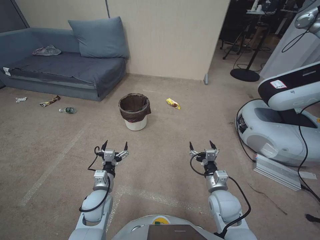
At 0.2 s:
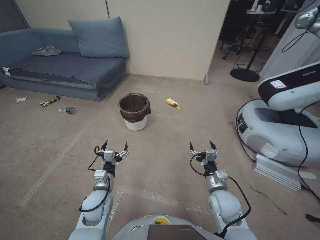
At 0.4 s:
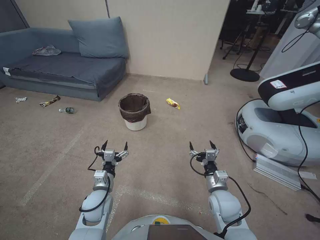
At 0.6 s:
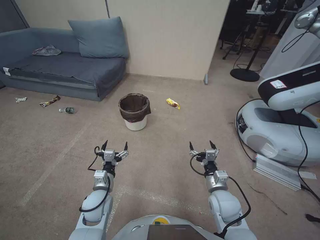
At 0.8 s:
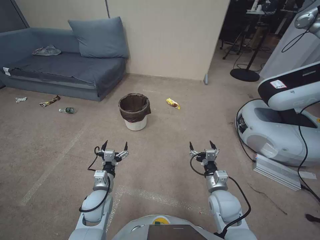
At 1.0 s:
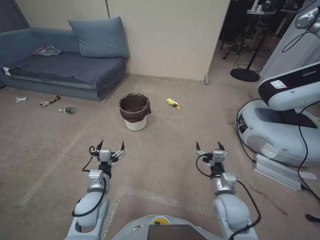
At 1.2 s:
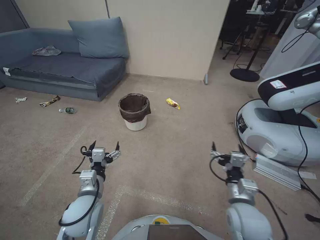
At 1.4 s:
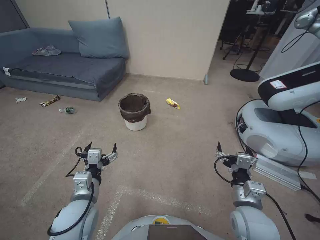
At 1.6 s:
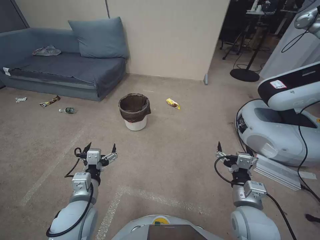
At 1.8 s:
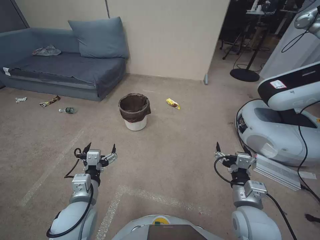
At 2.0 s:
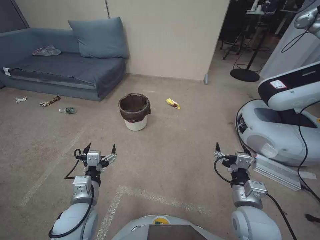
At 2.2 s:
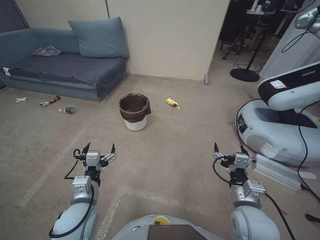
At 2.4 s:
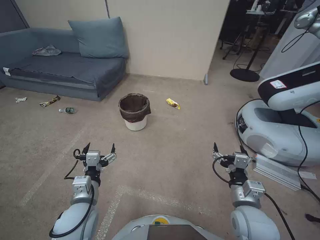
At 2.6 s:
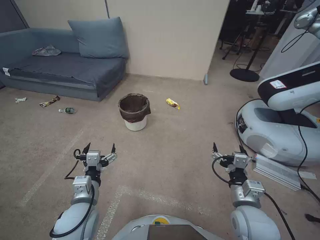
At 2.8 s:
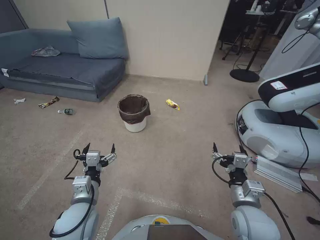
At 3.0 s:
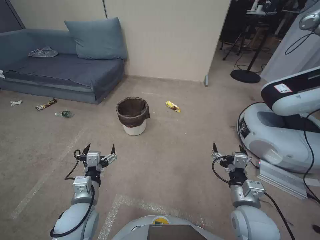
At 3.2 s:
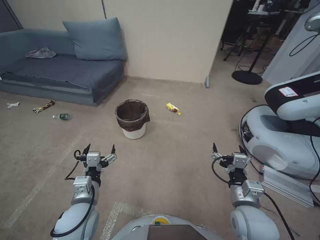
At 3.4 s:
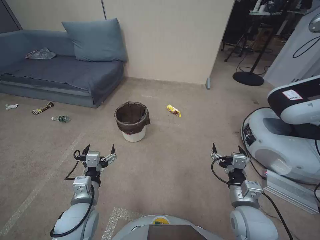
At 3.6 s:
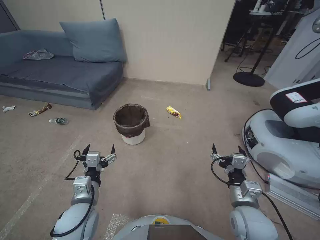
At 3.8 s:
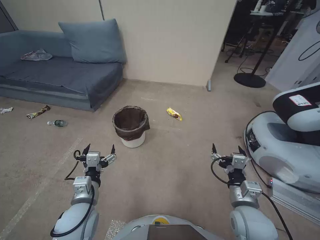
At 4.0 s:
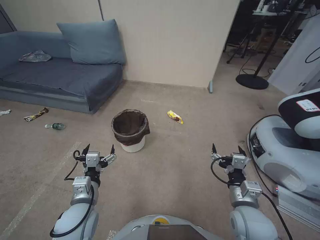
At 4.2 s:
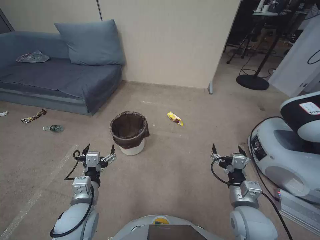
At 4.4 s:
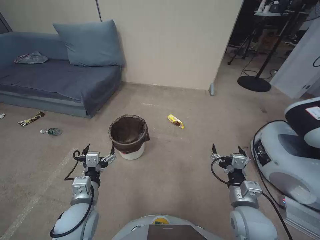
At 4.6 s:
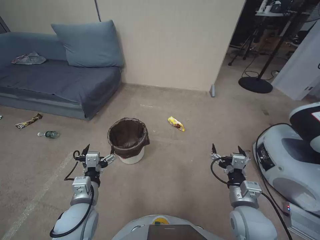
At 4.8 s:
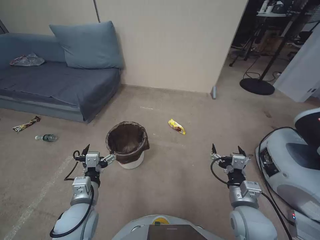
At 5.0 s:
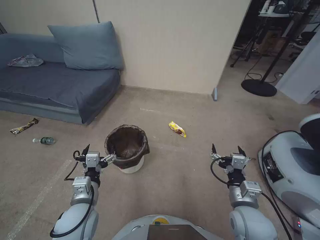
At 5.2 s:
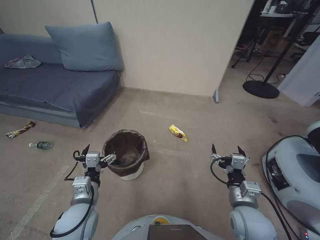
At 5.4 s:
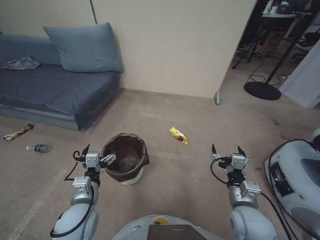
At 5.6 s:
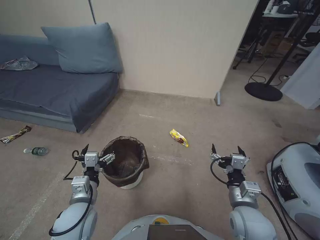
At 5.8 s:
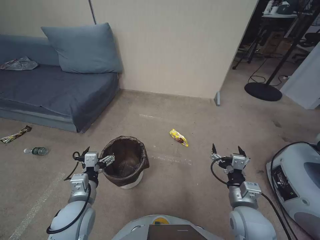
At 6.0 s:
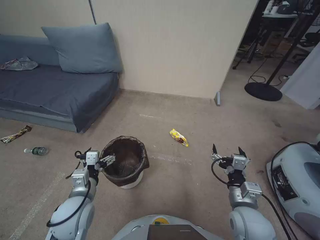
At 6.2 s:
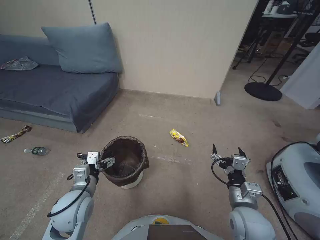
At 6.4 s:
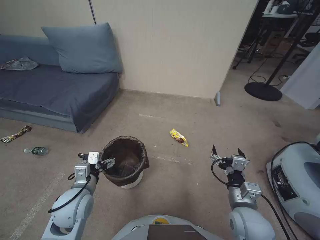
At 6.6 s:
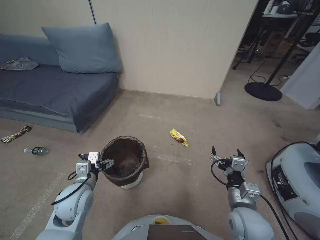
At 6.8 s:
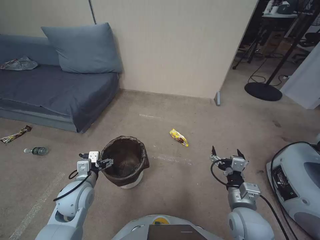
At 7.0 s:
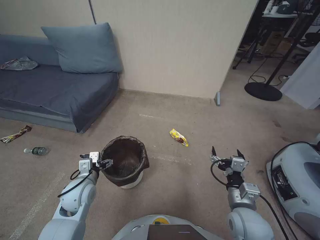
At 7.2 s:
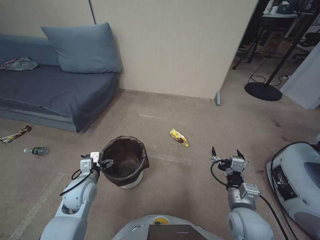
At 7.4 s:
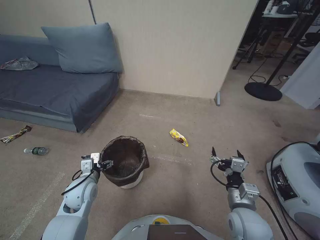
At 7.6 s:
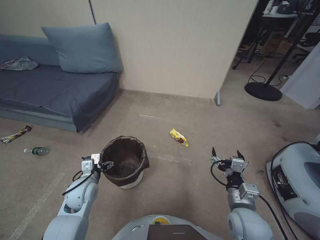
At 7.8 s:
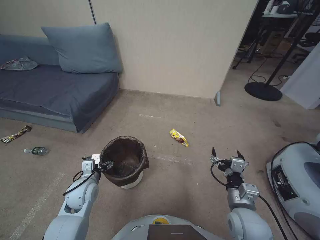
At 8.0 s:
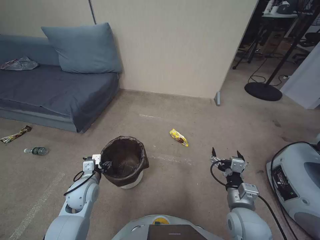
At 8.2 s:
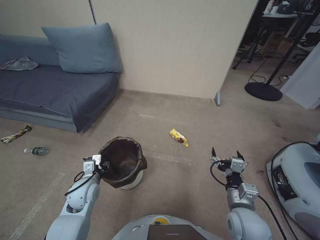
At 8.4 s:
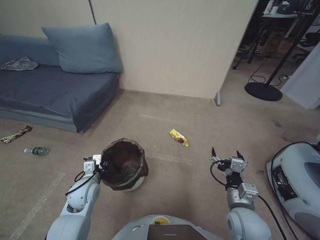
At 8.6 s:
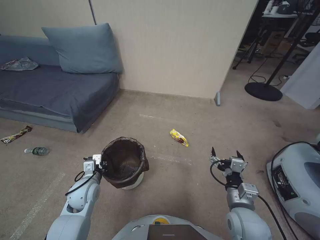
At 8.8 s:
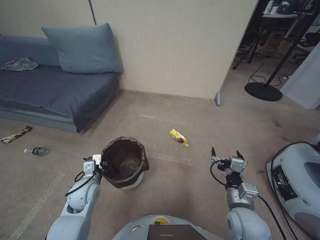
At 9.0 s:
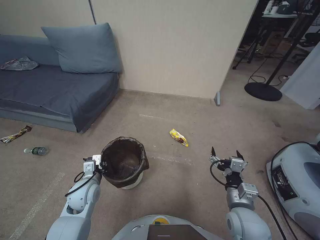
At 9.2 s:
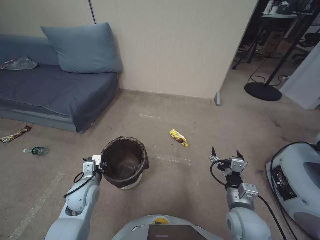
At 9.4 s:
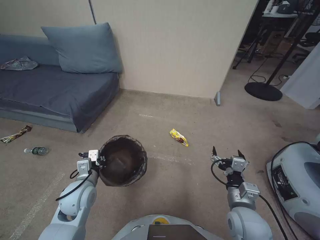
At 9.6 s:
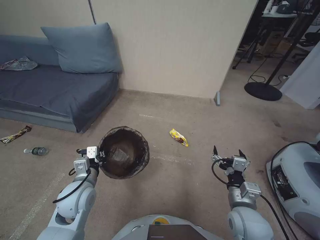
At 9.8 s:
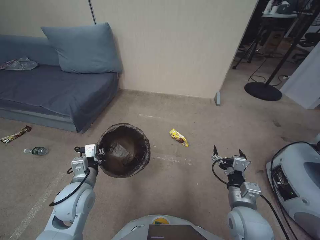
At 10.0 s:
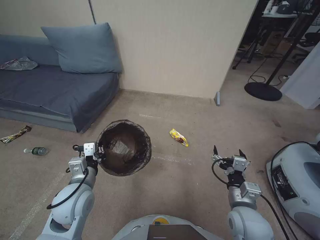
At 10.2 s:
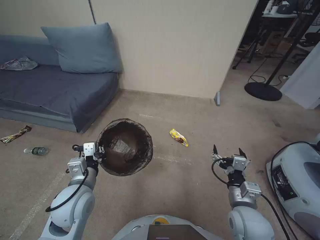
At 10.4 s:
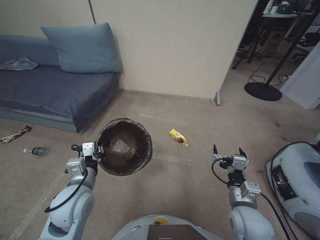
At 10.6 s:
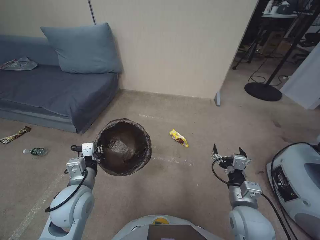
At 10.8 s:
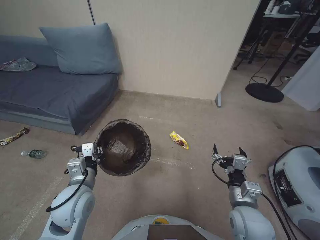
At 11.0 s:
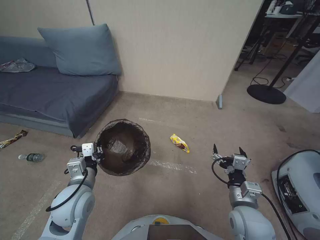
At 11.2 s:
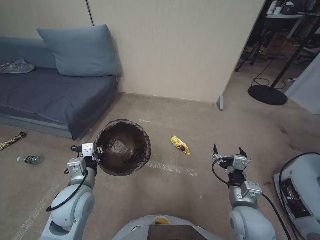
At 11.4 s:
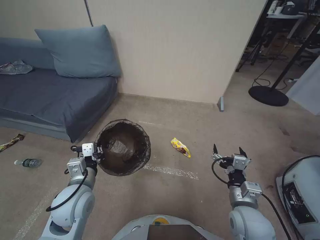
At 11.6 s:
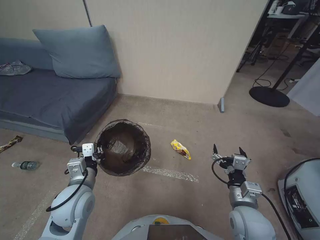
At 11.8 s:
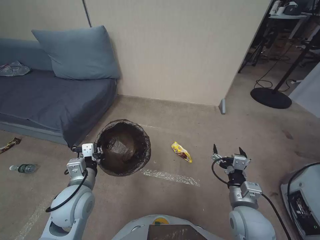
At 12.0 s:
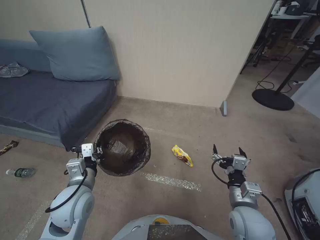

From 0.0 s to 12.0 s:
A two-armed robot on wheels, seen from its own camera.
Task of the whole recording: Pick up the trash bin, then pick up the garbage from the floor and place it into the trash bin.
From 1.6 s to 3.0 s: There are only small adjustments of the grippers.
From 6.0 s to 7.6 s: The left gripper travels forward and downward by some 10 cm.
From 7.6 s to 9.0 s: The left gripper closes up.
From 9.0 s to 10.4 s: The left gripper travels upward and backward by about 10 cm.
From 10.4 s to 12.0 s: The two grippers keep their place.

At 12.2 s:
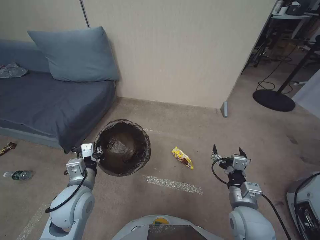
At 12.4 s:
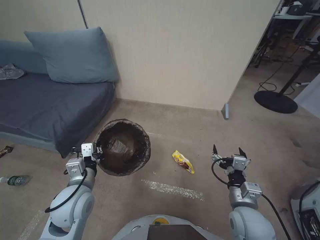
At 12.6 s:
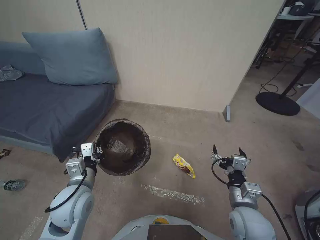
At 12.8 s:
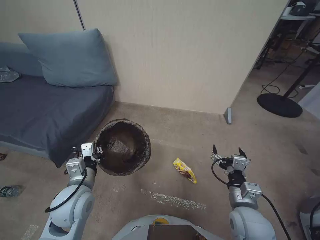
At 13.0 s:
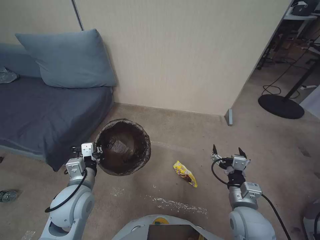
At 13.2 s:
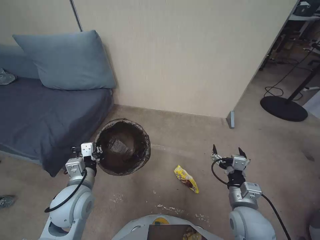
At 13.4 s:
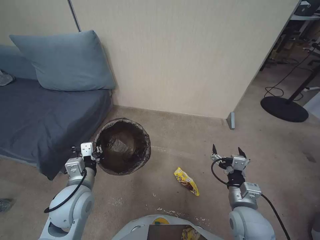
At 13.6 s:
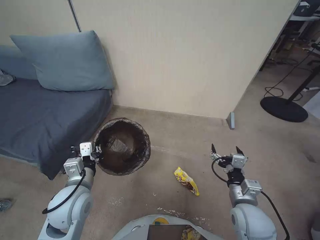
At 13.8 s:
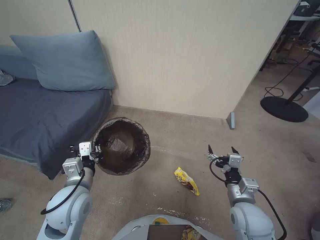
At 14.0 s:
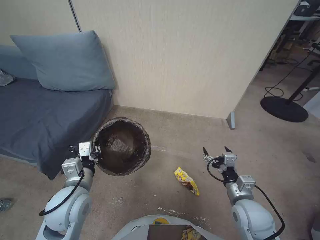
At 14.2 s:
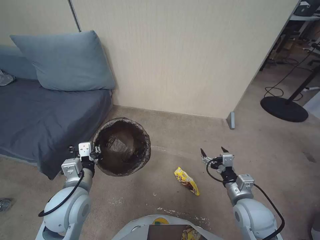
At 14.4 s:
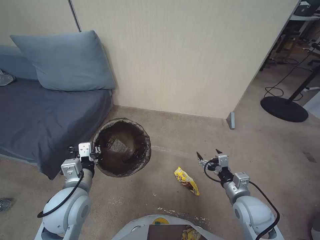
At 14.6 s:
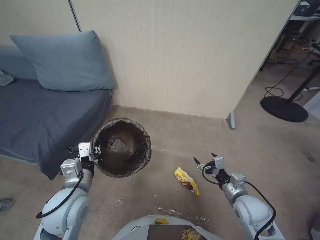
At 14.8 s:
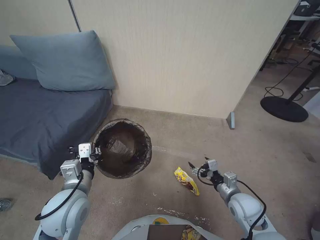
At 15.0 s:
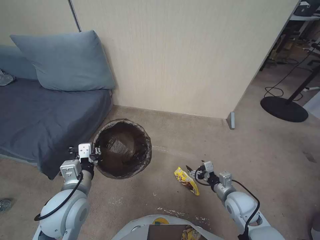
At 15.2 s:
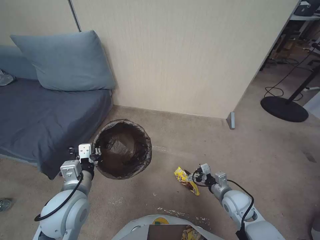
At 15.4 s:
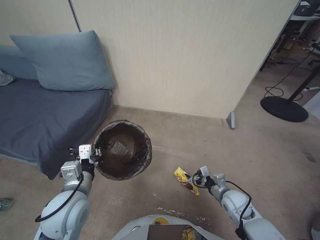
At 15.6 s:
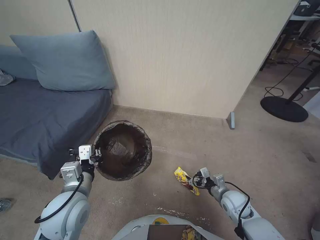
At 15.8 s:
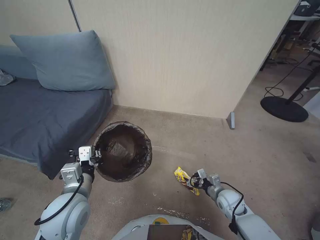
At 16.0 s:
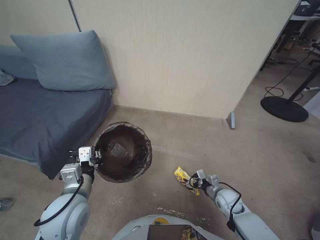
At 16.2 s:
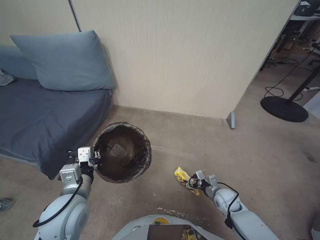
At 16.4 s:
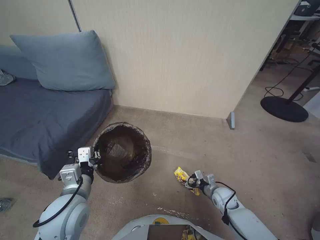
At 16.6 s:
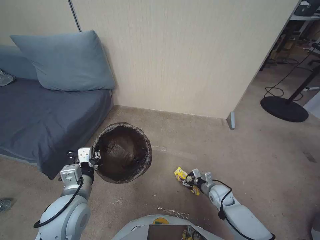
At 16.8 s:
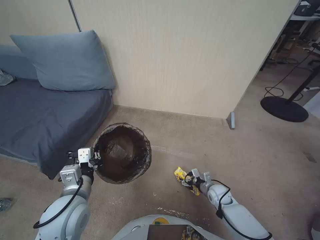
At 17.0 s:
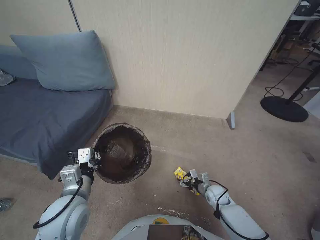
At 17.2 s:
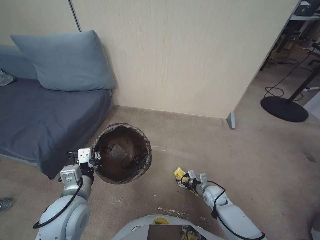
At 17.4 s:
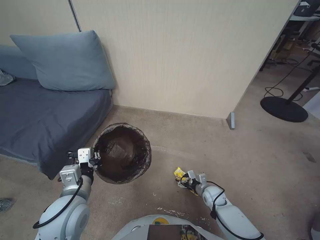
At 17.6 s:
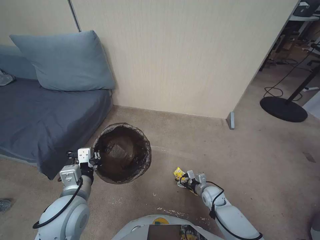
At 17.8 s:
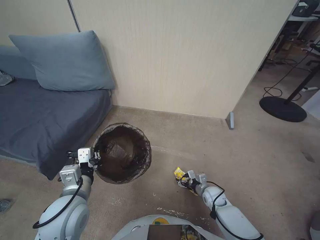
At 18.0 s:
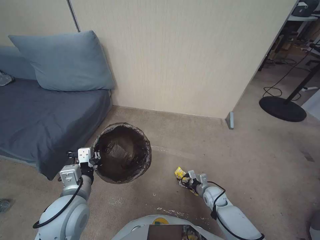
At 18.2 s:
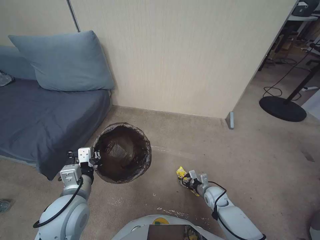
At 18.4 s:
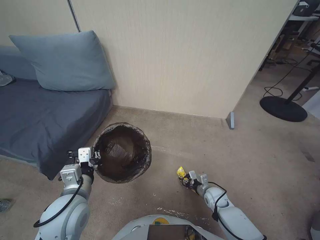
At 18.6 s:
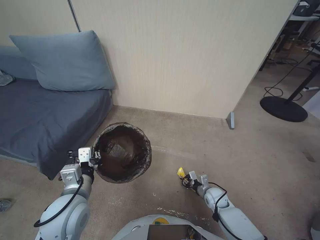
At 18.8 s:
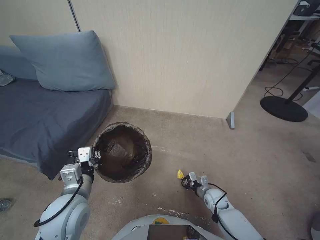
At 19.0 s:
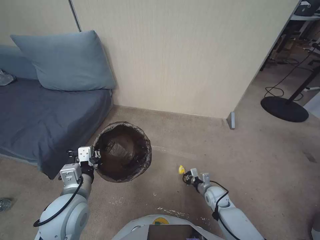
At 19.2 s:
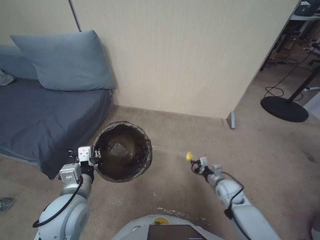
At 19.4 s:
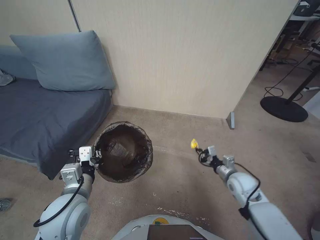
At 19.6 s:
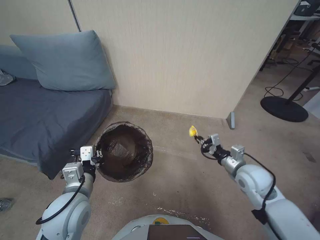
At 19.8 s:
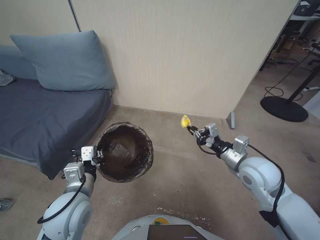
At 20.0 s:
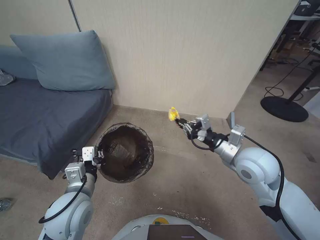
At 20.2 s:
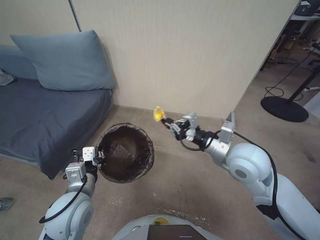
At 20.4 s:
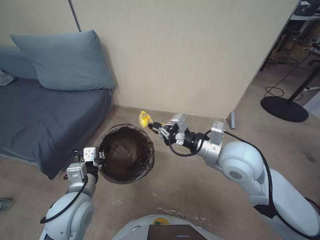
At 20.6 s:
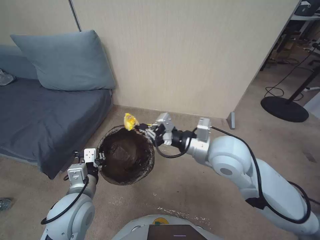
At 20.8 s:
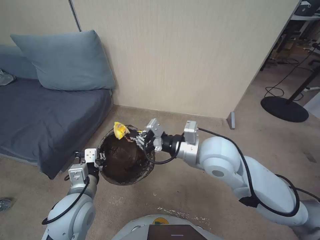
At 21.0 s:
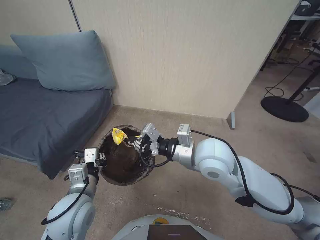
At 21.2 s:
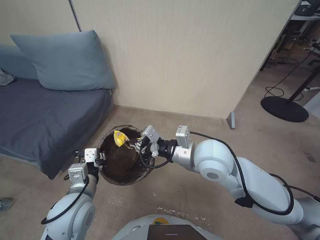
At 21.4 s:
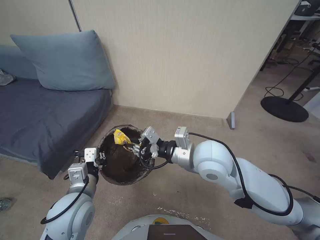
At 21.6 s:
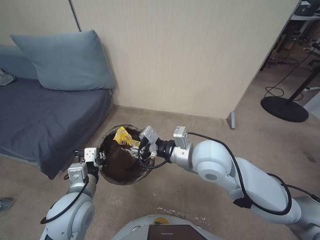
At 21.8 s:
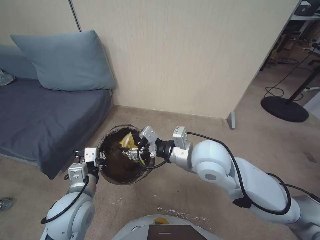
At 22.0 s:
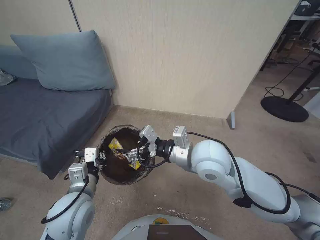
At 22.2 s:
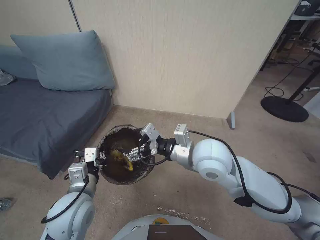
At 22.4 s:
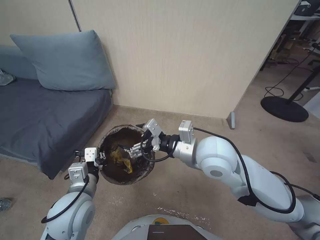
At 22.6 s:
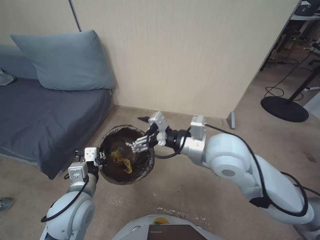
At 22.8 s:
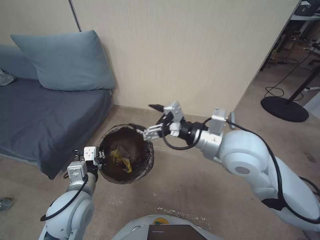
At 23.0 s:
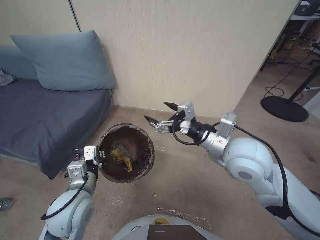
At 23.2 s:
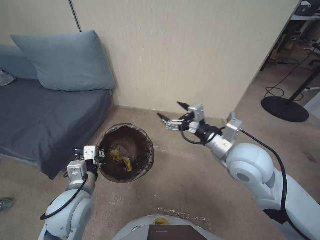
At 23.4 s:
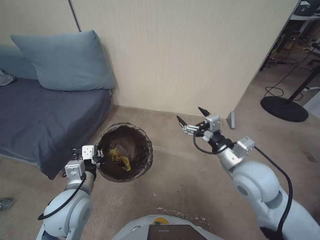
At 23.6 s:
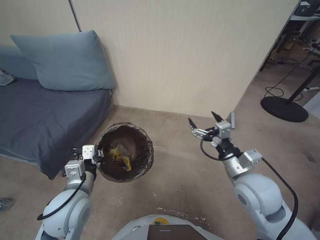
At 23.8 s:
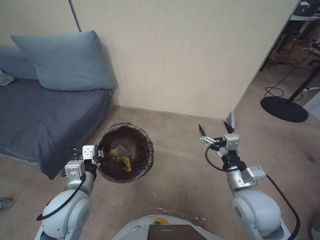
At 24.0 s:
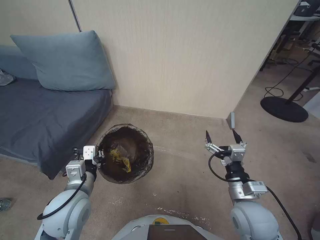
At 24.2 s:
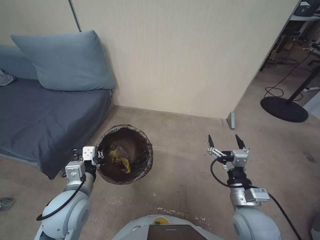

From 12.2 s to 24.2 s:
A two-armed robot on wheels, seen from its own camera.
Task of the whole recording: Pick up the trash bin, then pick up the garbage from the floor and place it into the trash bin.
From 13.8 s to 15.2 s: The right gripper heads downward and forward, covering about 10 cm.
From 15.2 s to 16.6 s: The right gripper is displaced downward by about 10 cm.
From 16.6 s to 18.2 s: The grippers stay close to where they were, moving slightly.
From 18.2 s to 19.8 s: The right gripper shifts approximately 30 cm upward, and closes its fingers.
From 19.8 s to 21.2 s: The right gripper heads to the left and upward, covering about 20 cm.
From 21.2 s to 22.6 s: The right gripper opens up.
From 22.6 s to 24.2 s: The right gripper goes about 25 cm downward, backward and to the right.
